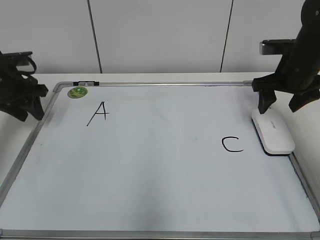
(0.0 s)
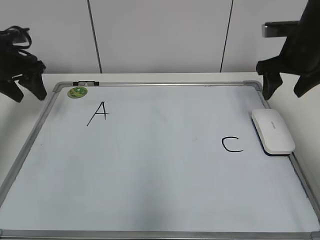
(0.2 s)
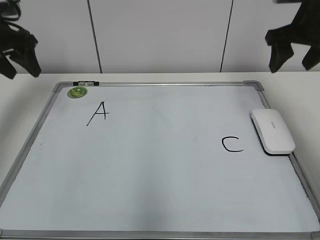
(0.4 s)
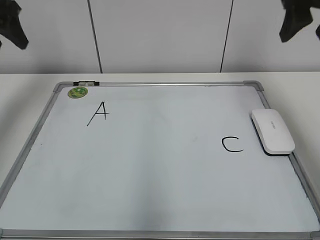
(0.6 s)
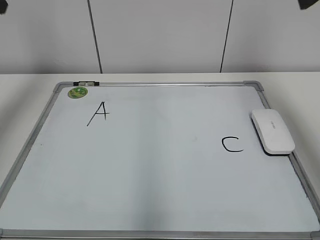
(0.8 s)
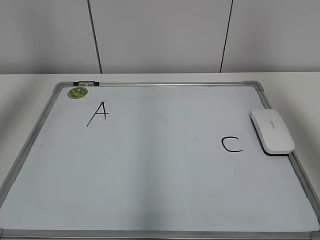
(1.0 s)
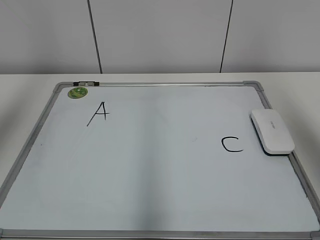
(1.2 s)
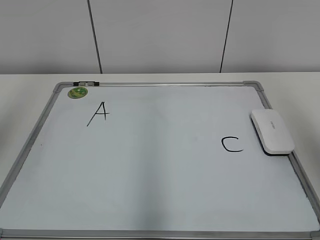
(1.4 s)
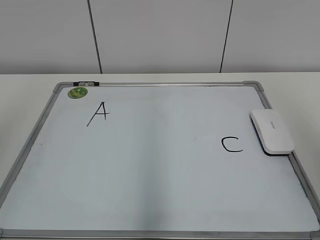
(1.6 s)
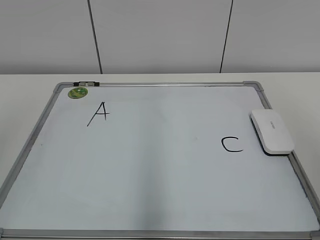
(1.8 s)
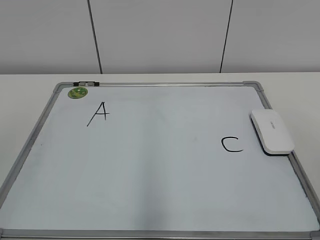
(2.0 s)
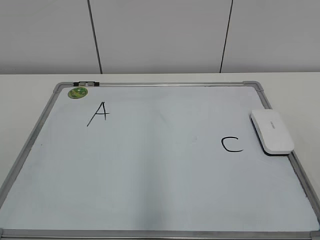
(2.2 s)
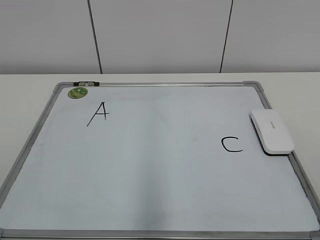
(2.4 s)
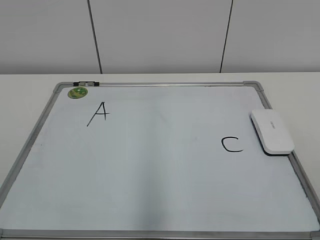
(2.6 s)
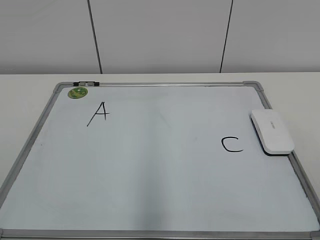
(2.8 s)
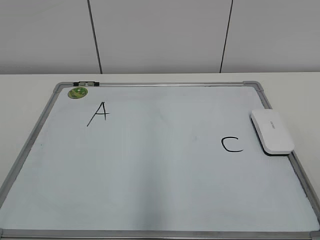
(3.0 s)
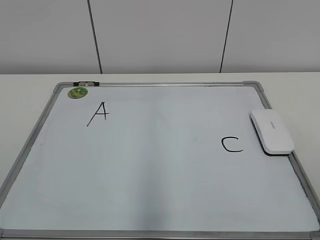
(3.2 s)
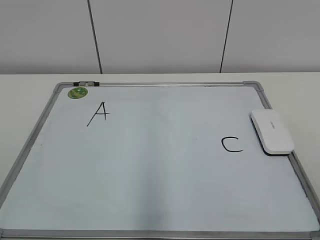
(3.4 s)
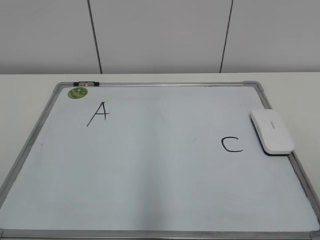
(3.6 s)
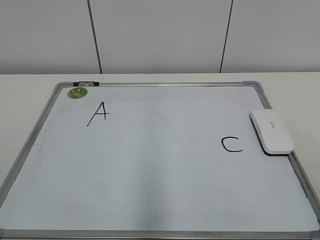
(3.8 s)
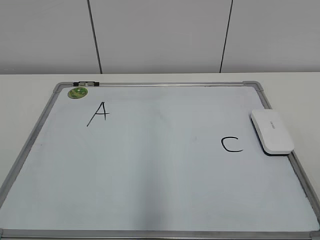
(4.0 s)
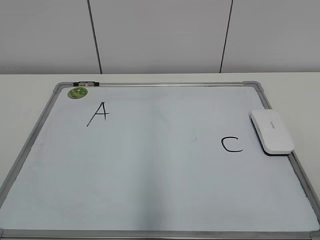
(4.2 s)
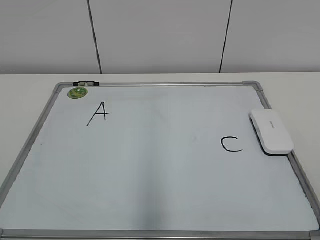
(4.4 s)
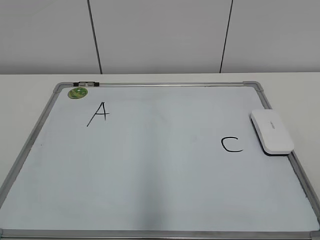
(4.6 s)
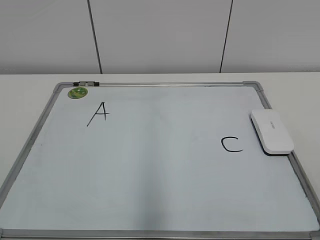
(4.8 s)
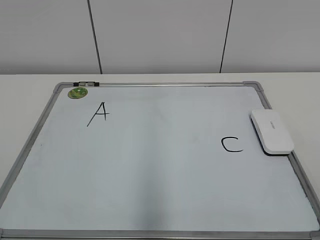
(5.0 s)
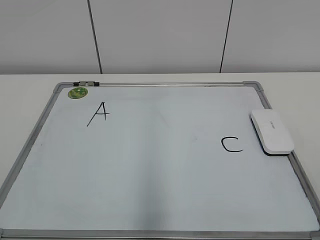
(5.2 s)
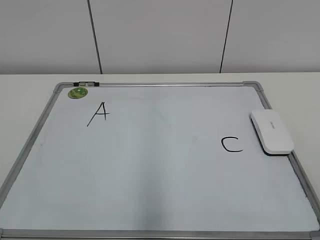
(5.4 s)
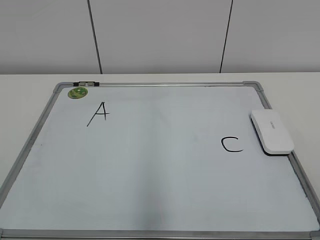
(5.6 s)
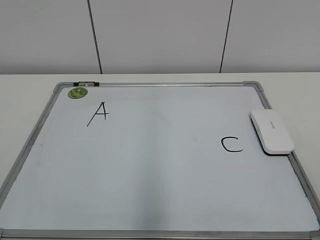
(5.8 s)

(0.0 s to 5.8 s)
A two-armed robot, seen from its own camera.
Task of the whole recording: pick up the eraser on the blackboard and erase the letter "B".
0.0 s - 1.4 s: The right gripper shifts some 35 cm backward and upward; the left gripper is displaced upward and backward by approximately 40 cm.
1.4 s - 2.8 s: The two grippers go approximately 20 cm downward and backward.
4.4 s - 5.8 s: The two grippers keep their place.

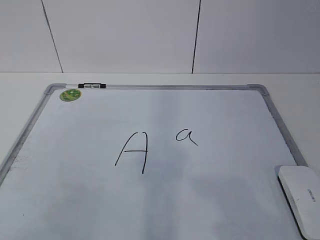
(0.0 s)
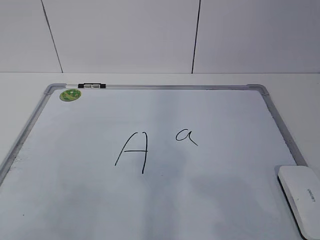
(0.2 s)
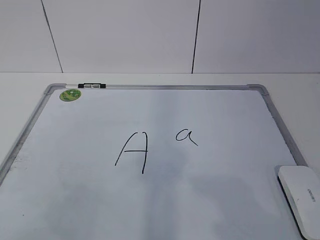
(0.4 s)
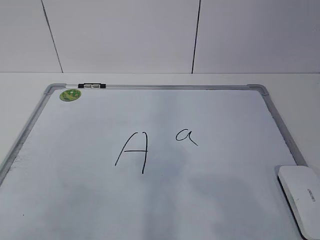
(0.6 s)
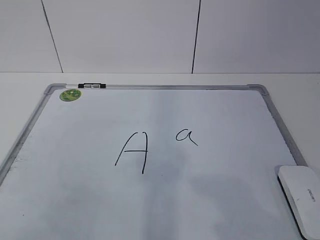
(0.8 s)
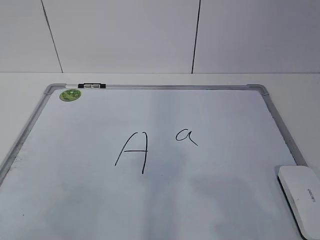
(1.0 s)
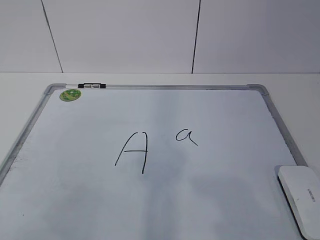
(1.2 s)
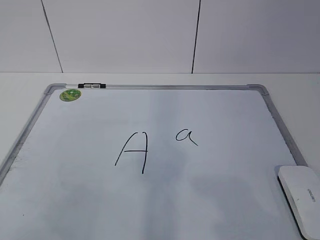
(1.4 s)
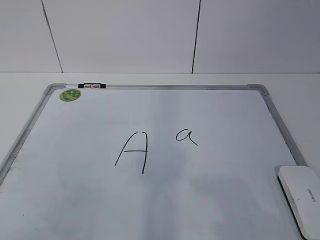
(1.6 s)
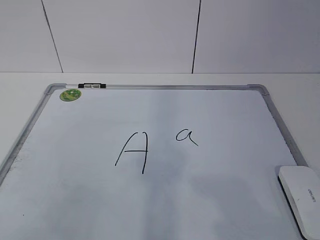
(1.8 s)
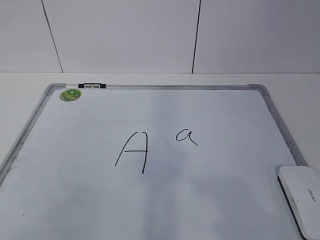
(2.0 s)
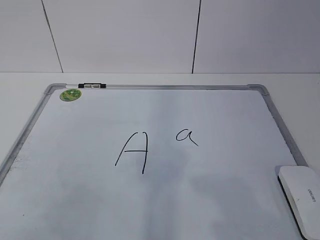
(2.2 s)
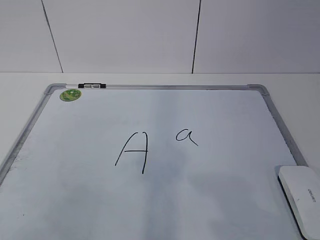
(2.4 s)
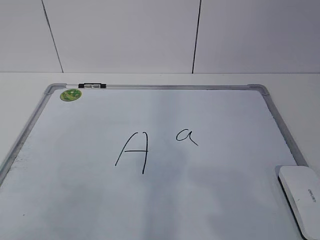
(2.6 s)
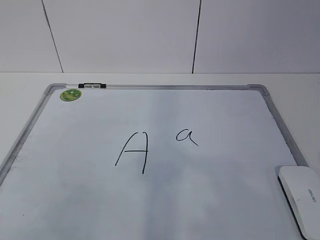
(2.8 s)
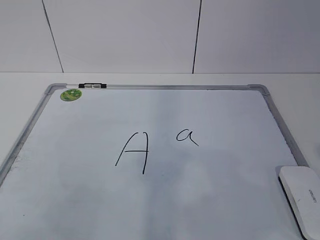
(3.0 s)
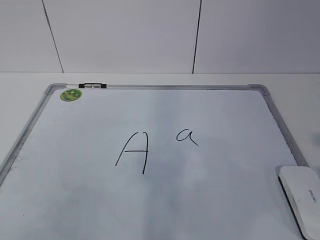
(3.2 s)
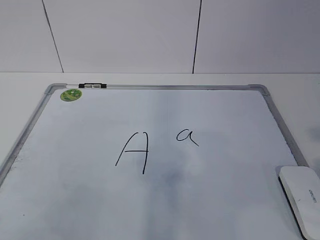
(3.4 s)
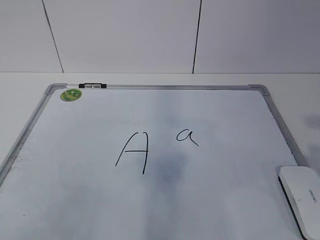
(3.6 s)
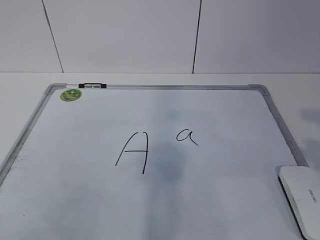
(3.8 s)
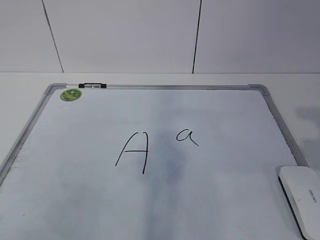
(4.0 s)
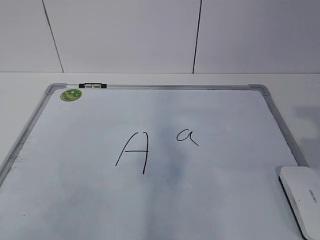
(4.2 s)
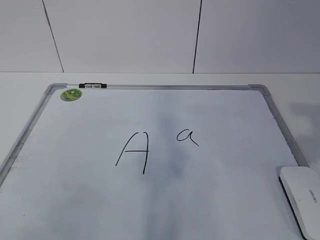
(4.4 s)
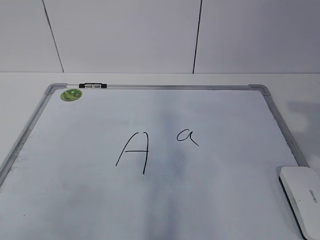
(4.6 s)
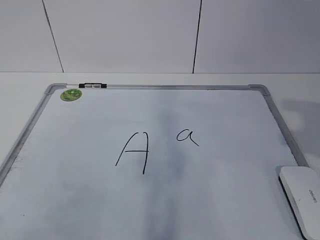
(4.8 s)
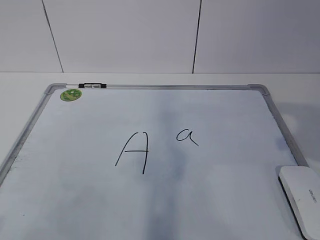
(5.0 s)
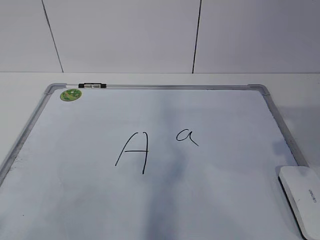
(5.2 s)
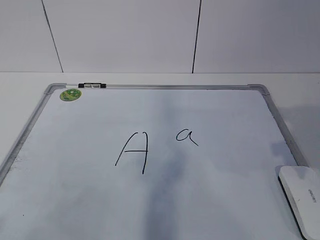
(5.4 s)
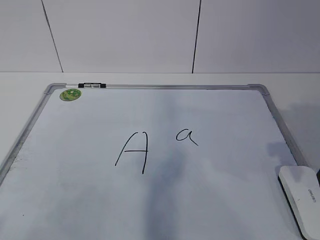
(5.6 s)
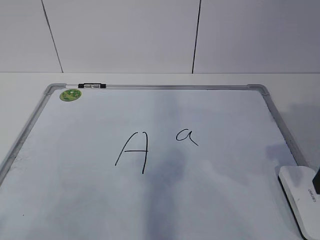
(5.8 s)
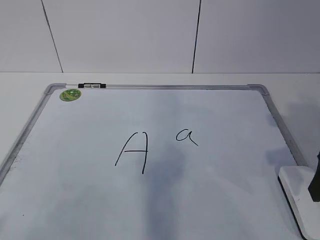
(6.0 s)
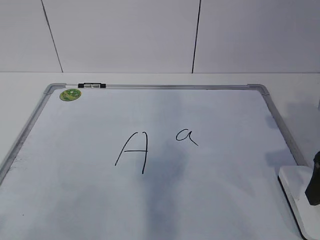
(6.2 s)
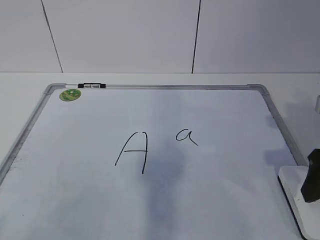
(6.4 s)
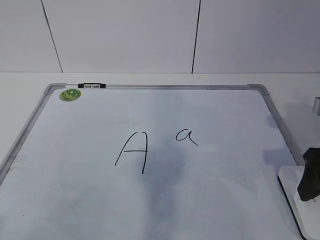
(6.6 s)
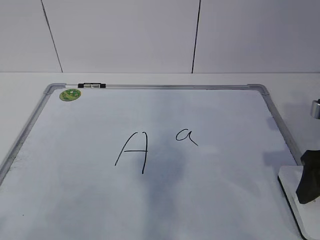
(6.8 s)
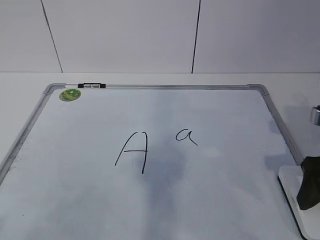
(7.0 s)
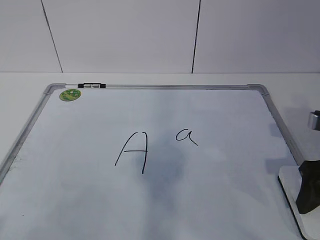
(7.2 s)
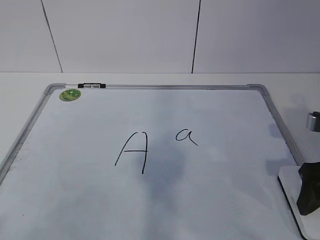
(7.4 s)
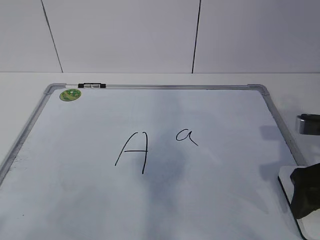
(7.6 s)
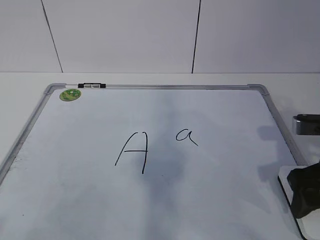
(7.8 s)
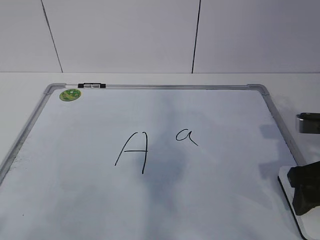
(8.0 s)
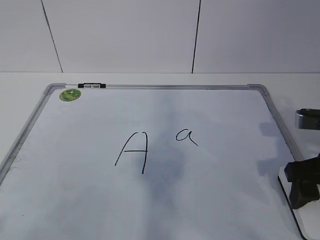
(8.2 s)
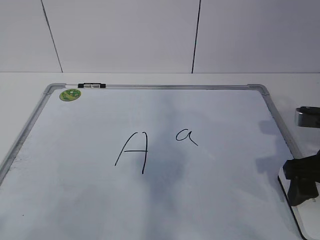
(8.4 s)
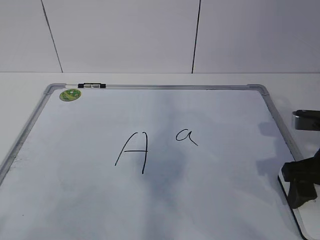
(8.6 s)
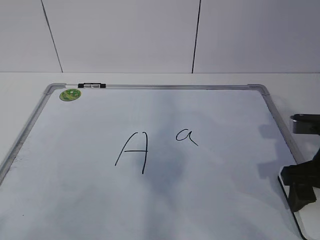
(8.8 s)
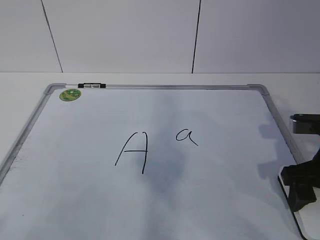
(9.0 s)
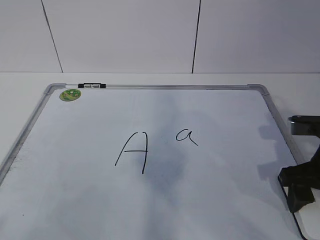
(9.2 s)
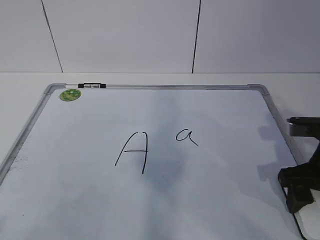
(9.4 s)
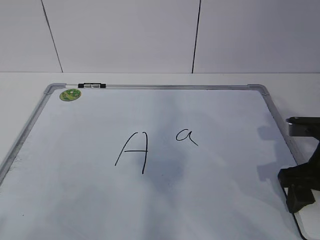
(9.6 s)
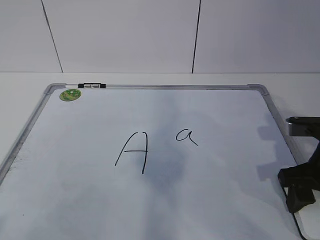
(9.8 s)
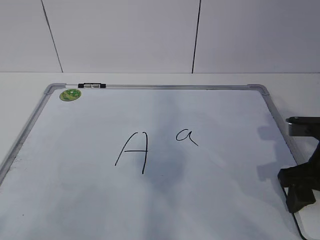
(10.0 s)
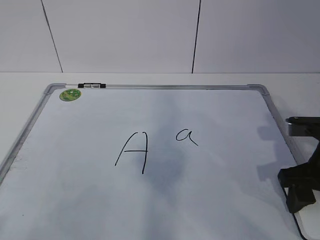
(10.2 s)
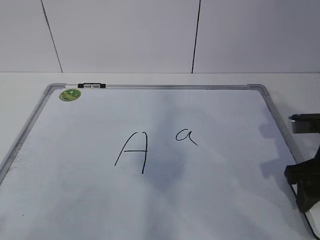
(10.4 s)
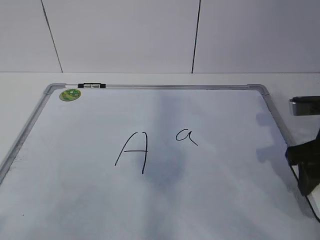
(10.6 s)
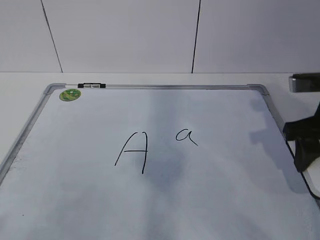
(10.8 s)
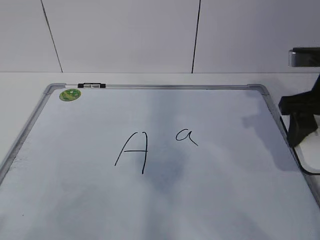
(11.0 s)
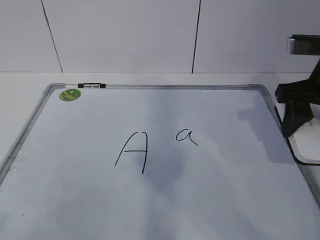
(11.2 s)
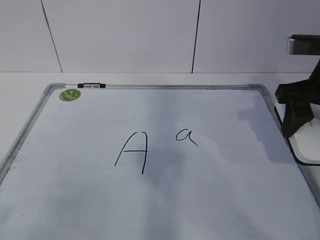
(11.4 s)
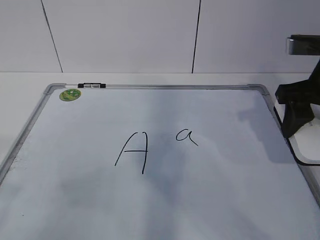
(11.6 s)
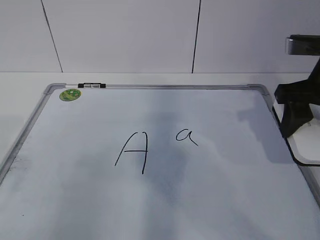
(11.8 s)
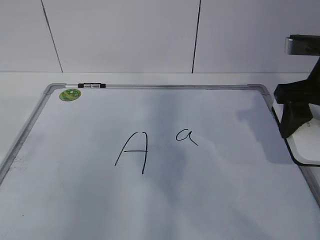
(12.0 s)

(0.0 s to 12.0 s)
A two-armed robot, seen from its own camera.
Task of the whole recording: pick up the eraser on the blackboard and erase the letter "a".
4.4 s - 6.0 s: The right gripper shifts roughly 10 cm downward and forward, and opens up.
6.0 s - 7.6 s: The grippers make only small movements.
7.6 s - 9.0 s: The grippers make only small movements.
9.0 s - 10.4 s: The right gripper closes its fingers.
10.4 s - 12.0 s: The right gripper shifts approximately 10 cm upward.

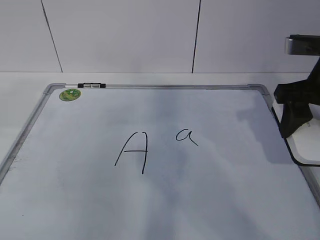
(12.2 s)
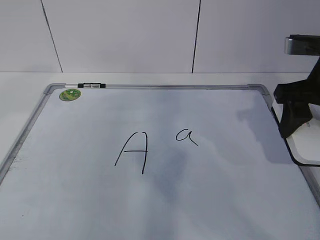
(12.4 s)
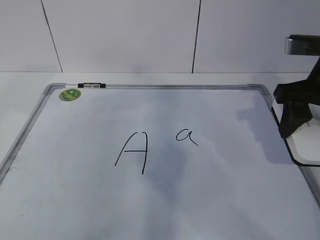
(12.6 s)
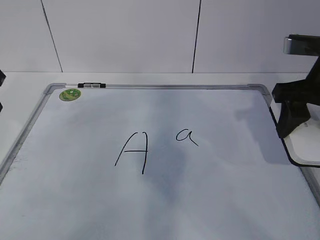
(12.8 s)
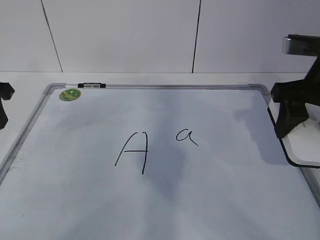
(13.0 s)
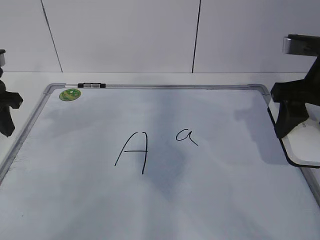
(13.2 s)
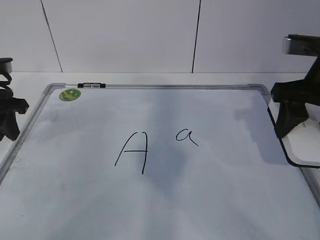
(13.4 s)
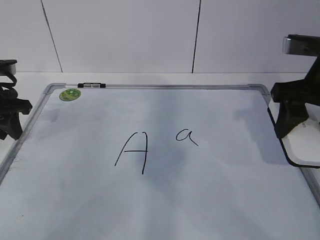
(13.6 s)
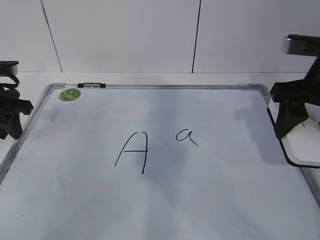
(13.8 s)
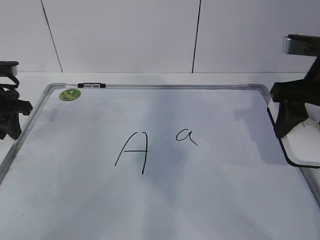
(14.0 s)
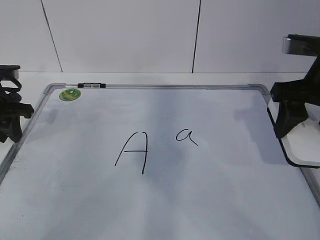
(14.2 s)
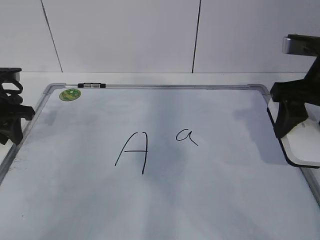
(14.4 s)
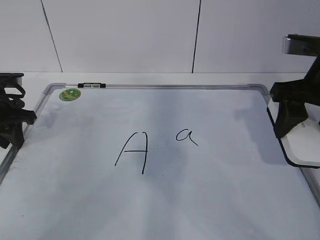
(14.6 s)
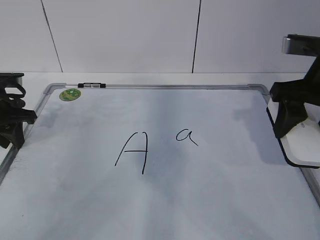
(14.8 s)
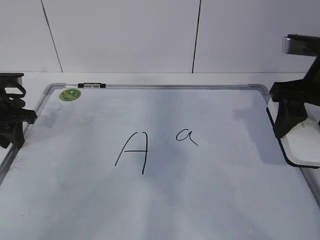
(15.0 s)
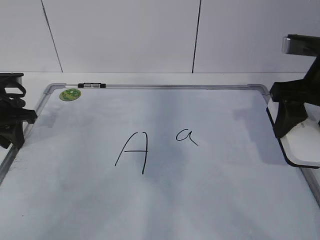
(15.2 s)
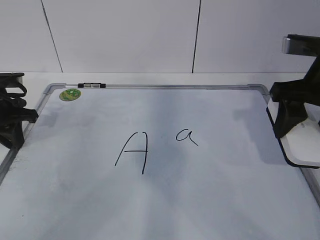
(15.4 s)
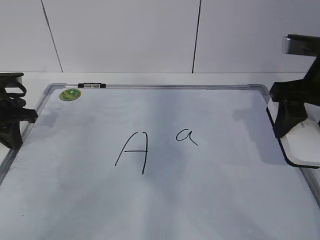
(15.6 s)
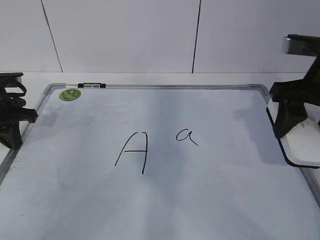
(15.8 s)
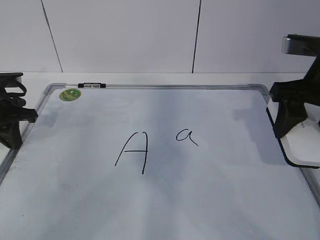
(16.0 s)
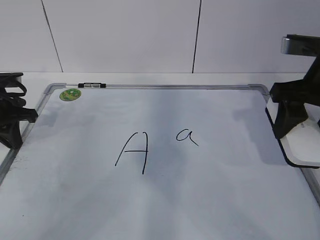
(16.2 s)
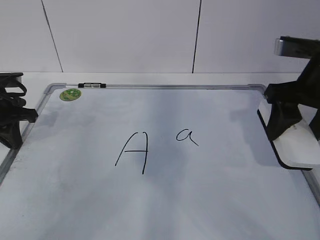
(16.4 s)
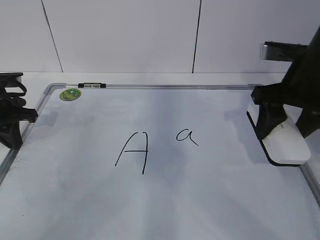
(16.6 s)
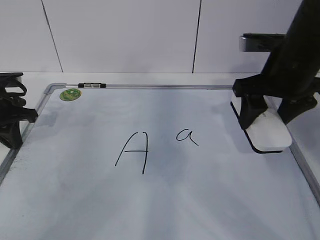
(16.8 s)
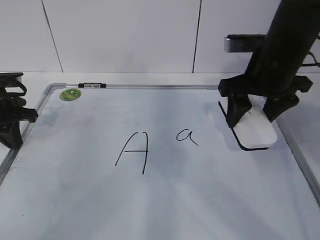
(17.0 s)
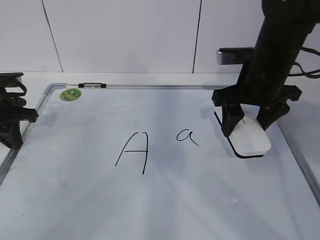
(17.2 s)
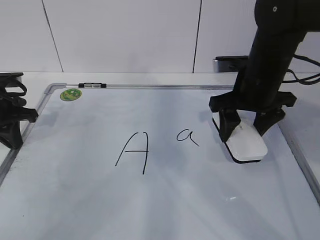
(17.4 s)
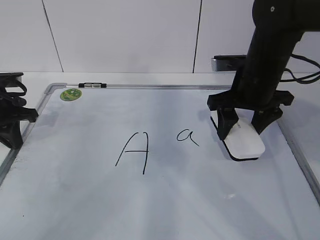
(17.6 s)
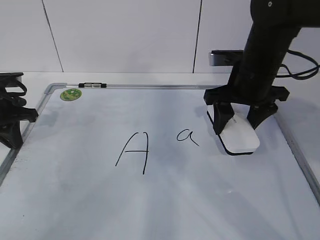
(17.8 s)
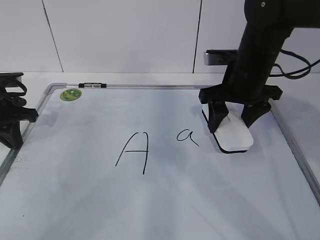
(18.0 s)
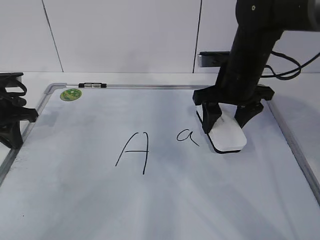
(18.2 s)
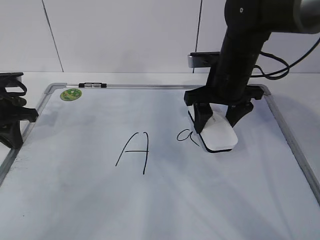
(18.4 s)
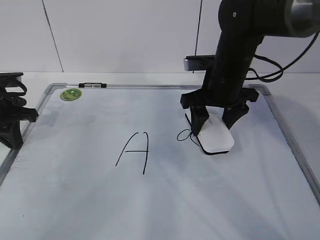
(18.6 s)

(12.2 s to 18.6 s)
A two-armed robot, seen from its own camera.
Task of the whole recording: pick up the eraser on the blackboard and erase the letter "a".
12.2 s - 13.8 s: The left gripper goes approximately 25 cm forward and downward.
13.8 s - 15.4 s: The grippers move only a little.
15.4 s - 17.0 s: The right gripper shifts about 10 cm to the left and forward.
17.0 s - 18.6 s: The right gripper is displaced downward and to the left by approximately 5 cm.
